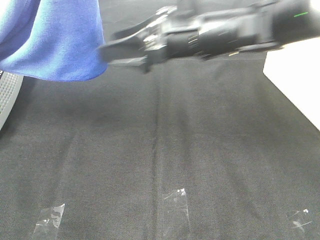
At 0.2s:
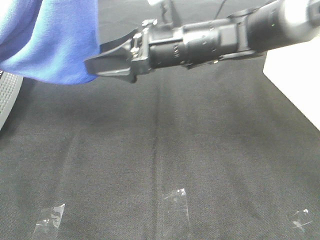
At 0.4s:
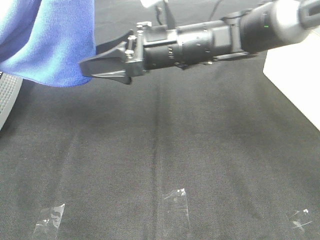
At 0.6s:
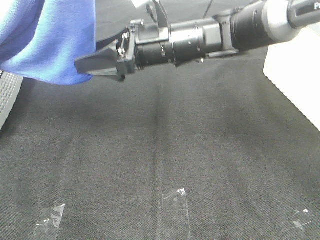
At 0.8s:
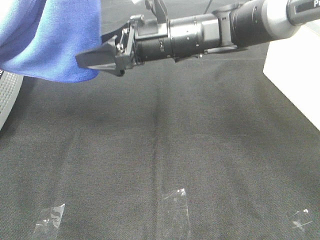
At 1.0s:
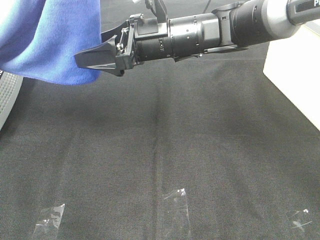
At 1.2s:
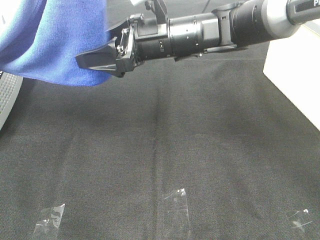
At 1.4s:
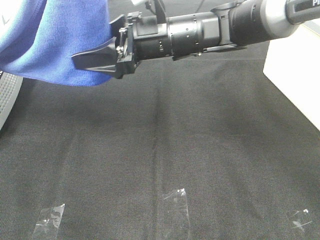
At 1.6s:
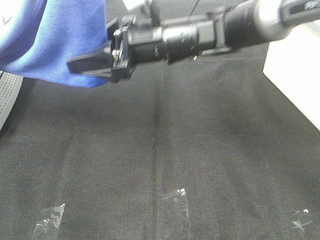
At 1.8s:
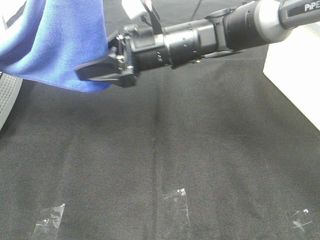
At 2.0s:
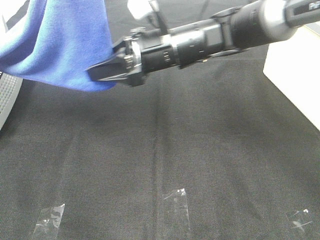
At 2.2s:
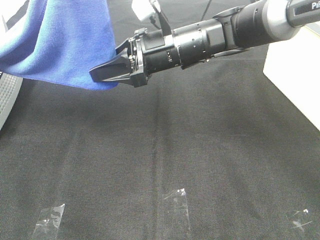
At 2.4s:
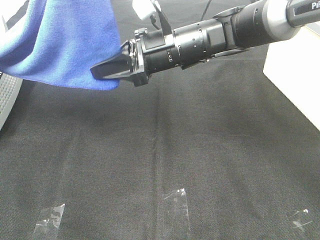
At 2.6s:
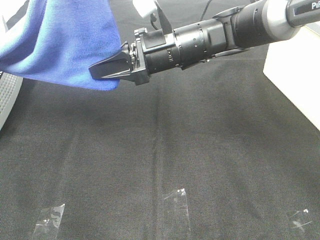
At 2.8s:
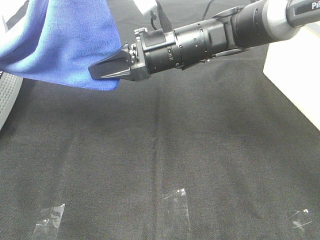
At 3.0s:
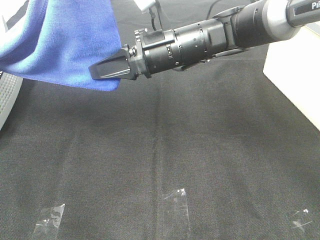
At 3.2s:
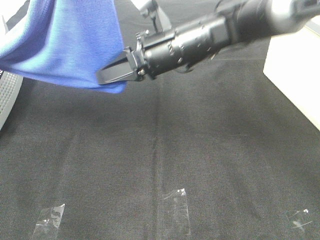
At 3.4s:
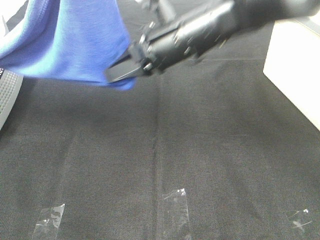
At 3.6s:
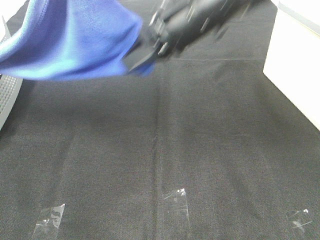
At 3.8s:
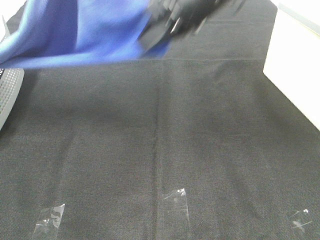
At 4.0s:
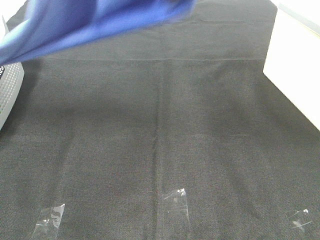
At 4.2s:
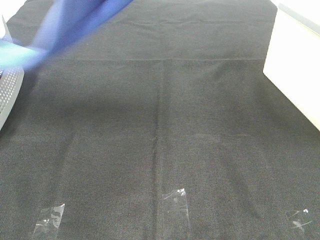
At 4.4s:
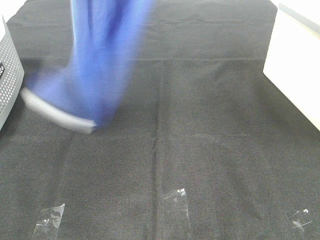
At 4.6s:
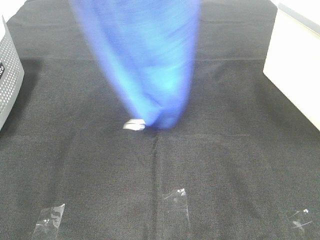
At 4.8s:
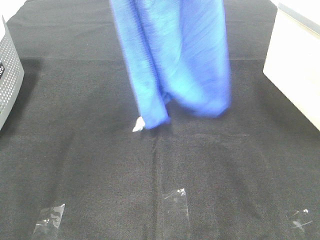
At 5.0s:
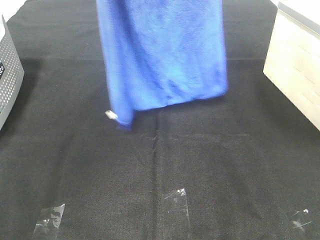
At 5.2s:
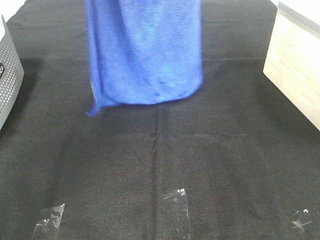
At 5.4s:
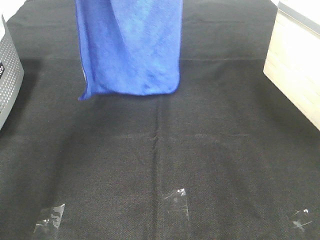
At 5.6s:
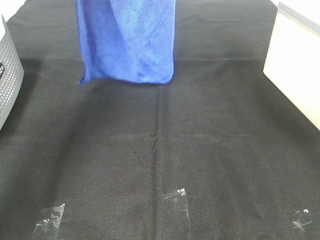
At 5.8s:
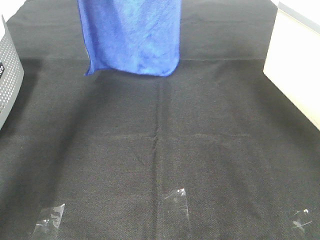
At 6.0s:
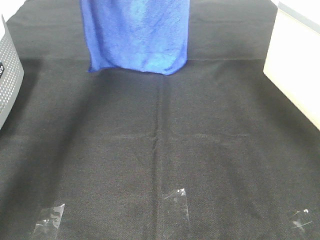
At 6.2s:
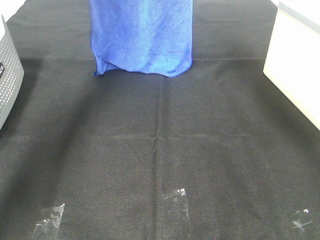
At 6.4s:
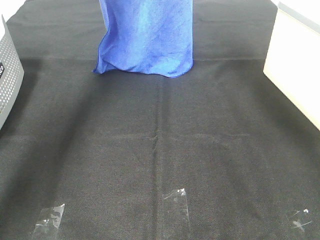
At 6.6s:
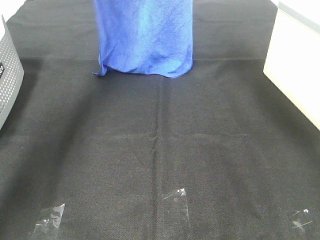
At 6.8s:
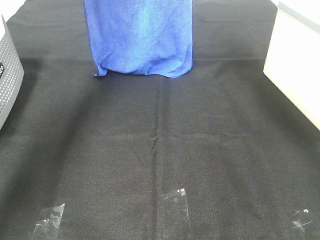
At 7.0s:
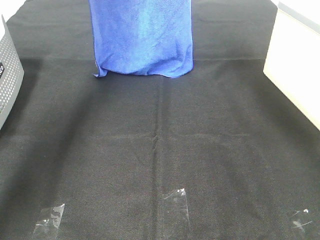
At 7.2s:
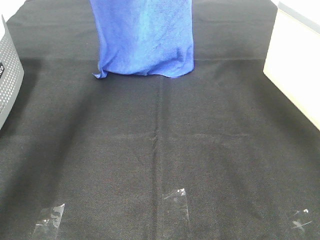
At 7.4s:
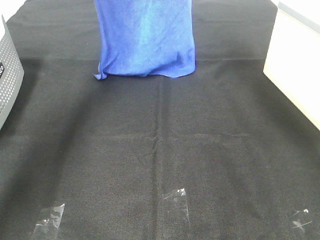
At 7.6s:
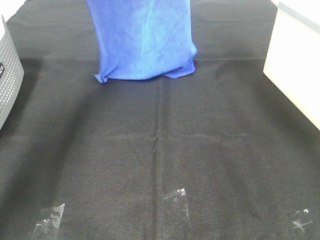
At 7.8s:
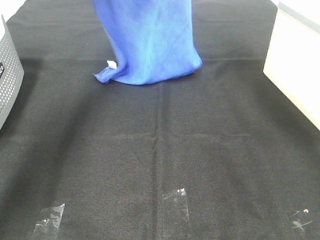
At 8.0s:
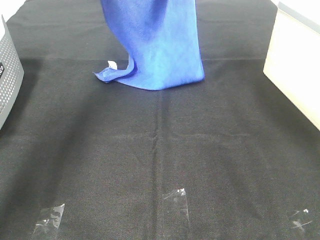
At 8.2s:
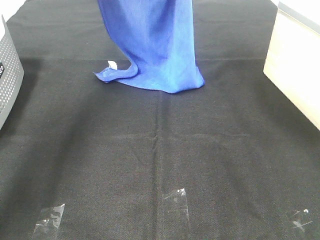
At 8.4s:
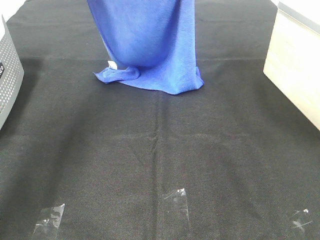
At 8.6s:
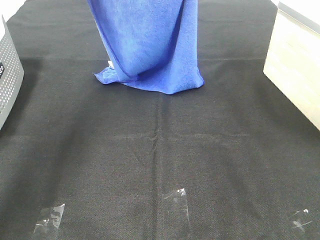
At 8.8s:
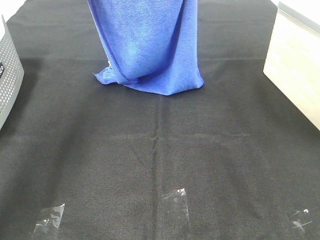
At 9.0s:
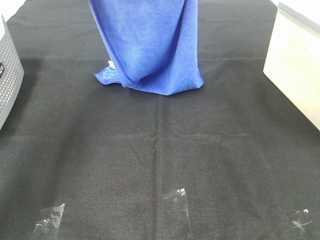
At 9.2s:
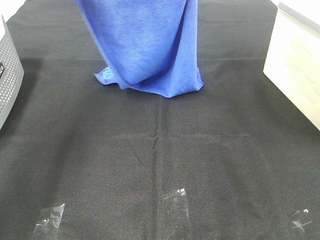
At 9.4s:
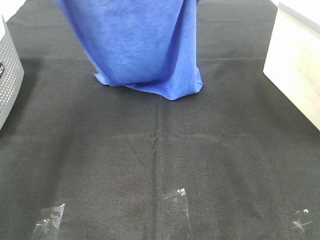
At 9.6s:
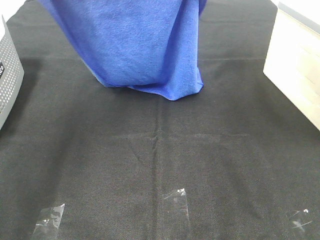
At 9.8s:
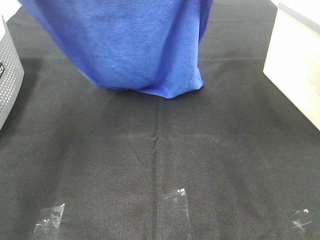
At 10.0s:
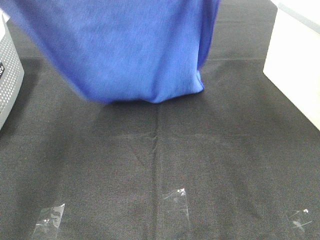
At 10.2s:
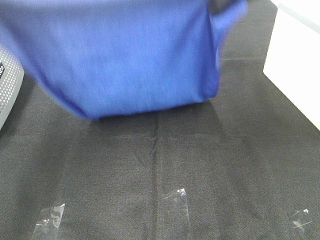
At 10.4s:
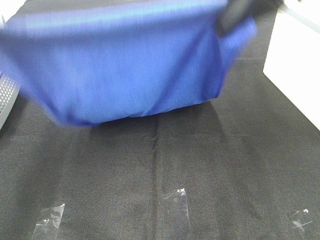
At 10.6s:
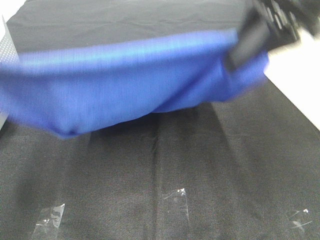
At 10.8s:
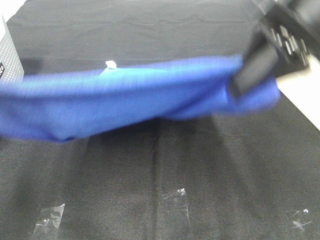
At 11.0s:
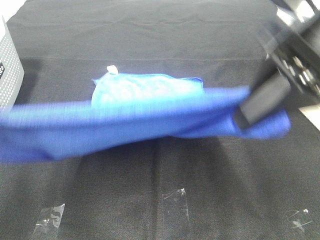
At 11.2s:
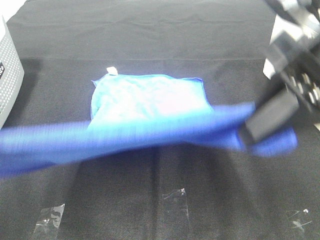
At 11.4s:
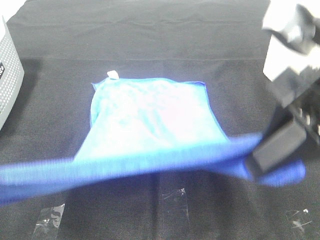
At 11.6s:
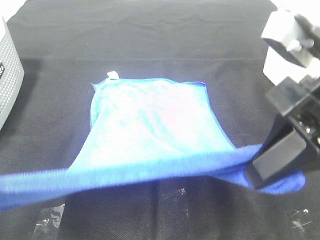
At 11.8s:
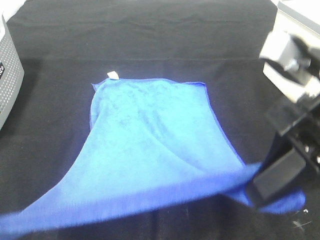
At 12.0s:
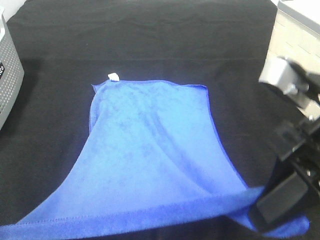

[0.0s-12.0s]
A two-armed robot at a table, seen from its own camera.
Task of the whole recording: Remove the towel and place it.
Step, 2.0s to 9.8s: Left hand: spread the blue towel flat on the table.
Step, 2.0s to 9.8s: Right hand: spread the blue towel flat on the table.
0.0s to 1.6s: The grippers move only a little.
1.6s to 3.0s: The right gripper closes up.
3.0s to 4.4s: The right gripper shifts roughly 30 cm upward. Meanwhile the left gripper shifts by about 5 cm.
4.4s to 6.0s: The left gripper shifts approximately 20 cm forward. The right gripper heads forward, covering approximately 15 cm.
6.0s to 7.6s: There are only small adjustments of the grippers.
7.6s to 9.0s: Both grippers travel together backward, approximately 10 cm.
9.0s to 10.4s: The right gripper goes about 15 cm backward and downward, while the left gripper is displaced backward by approximately 20 cm.
10.4s to 12.0s: Both grippers travel together backward and downward, approximately 15 cm.

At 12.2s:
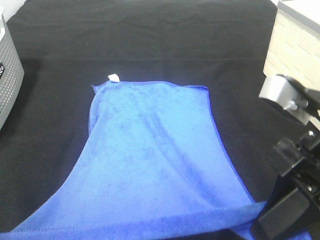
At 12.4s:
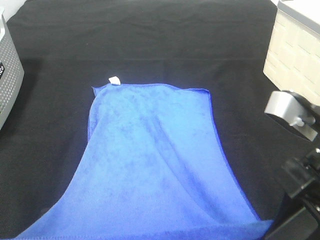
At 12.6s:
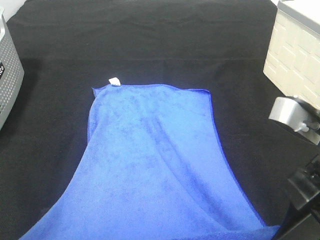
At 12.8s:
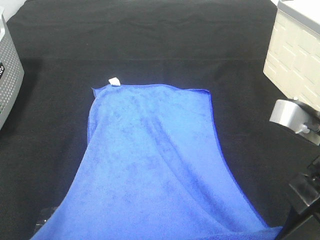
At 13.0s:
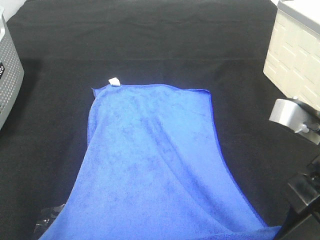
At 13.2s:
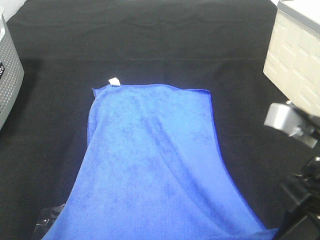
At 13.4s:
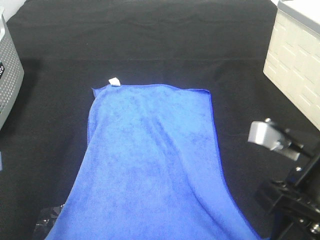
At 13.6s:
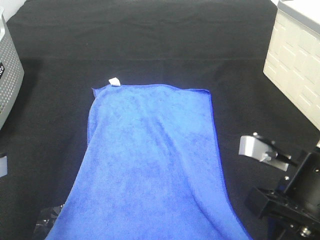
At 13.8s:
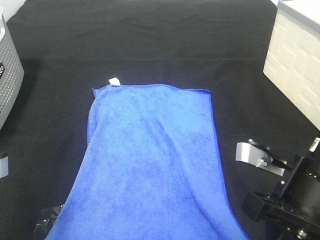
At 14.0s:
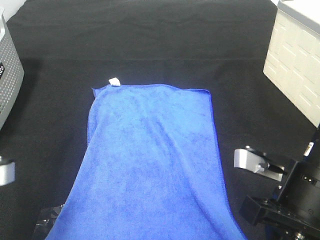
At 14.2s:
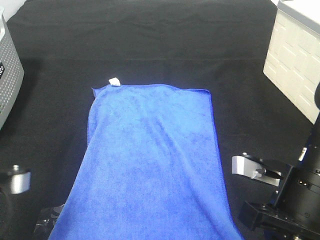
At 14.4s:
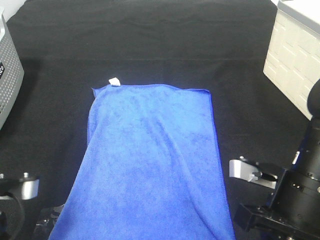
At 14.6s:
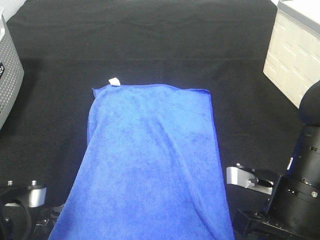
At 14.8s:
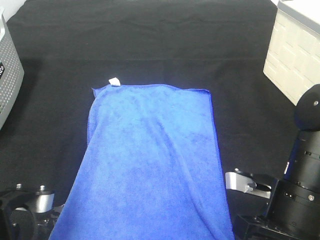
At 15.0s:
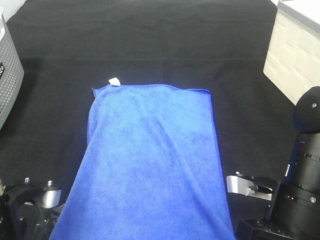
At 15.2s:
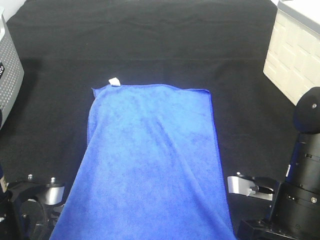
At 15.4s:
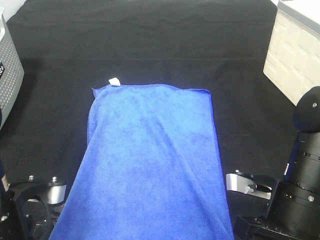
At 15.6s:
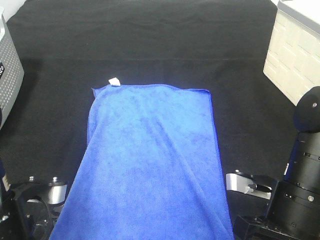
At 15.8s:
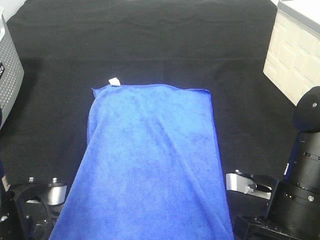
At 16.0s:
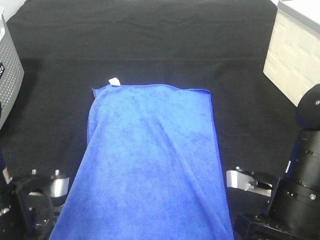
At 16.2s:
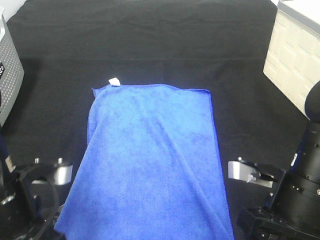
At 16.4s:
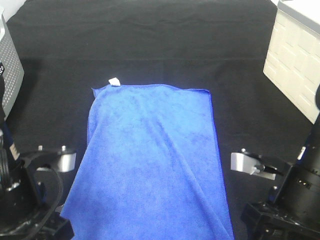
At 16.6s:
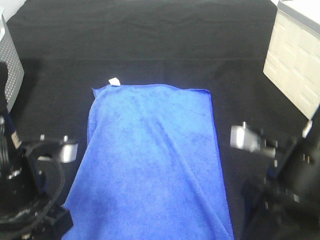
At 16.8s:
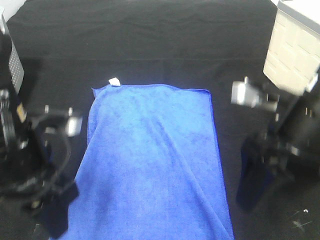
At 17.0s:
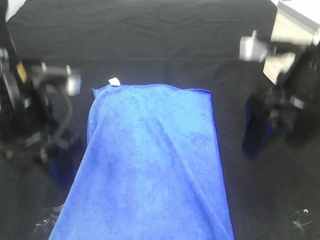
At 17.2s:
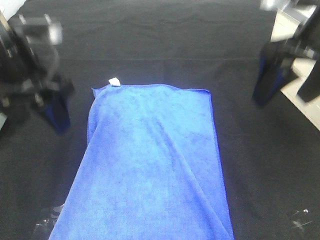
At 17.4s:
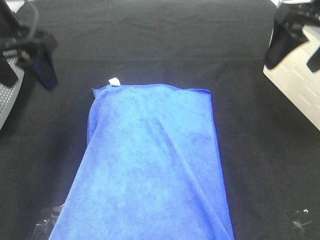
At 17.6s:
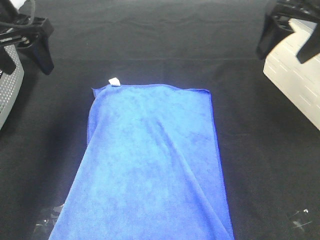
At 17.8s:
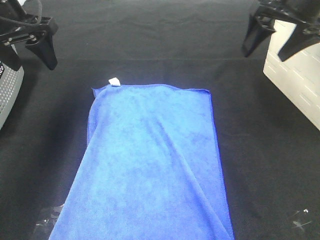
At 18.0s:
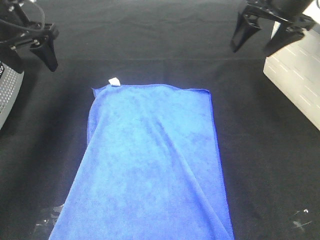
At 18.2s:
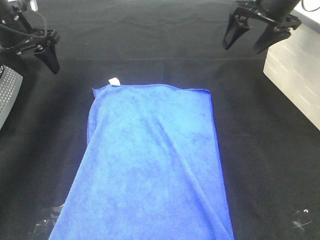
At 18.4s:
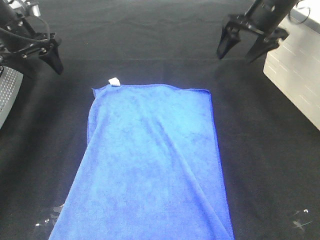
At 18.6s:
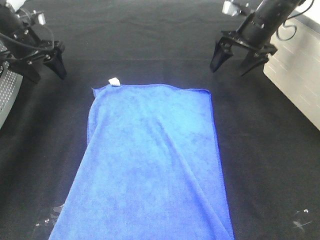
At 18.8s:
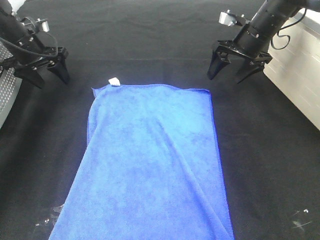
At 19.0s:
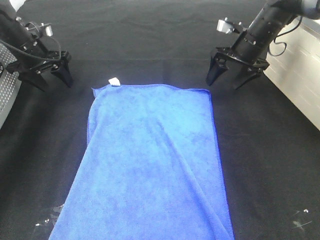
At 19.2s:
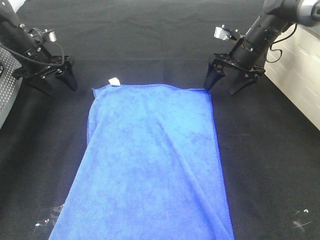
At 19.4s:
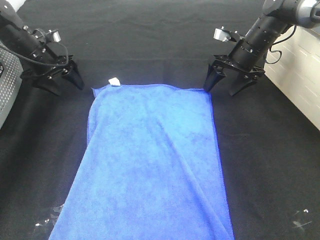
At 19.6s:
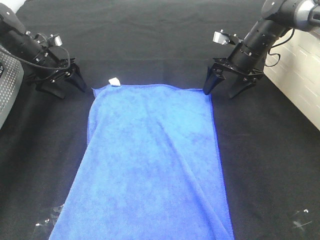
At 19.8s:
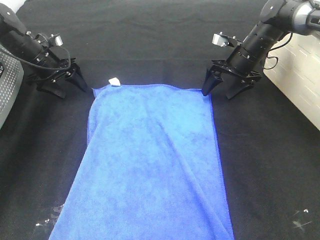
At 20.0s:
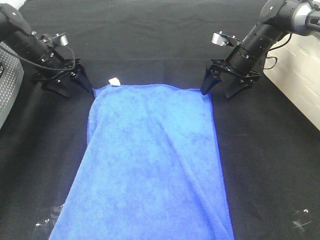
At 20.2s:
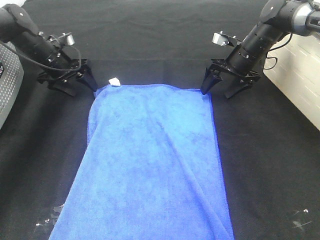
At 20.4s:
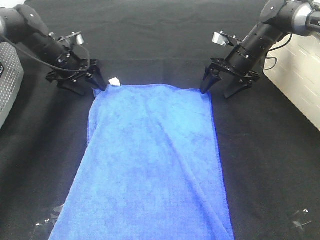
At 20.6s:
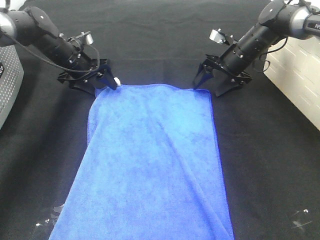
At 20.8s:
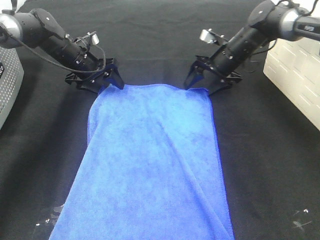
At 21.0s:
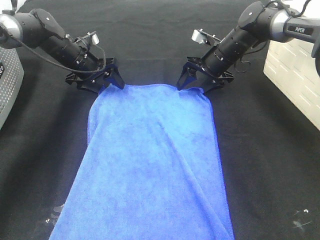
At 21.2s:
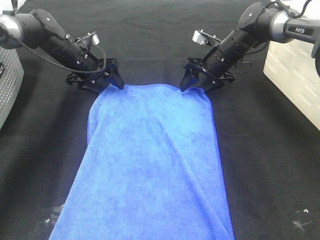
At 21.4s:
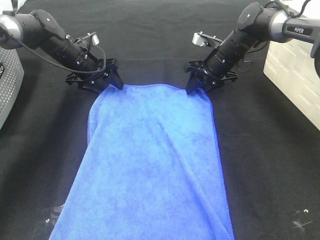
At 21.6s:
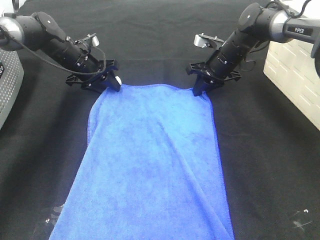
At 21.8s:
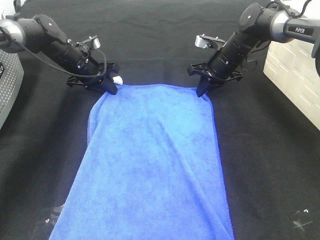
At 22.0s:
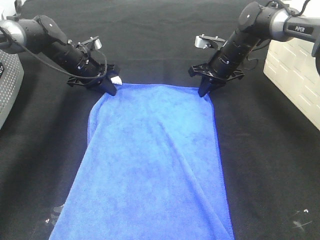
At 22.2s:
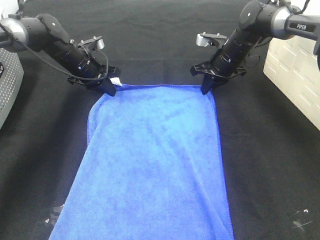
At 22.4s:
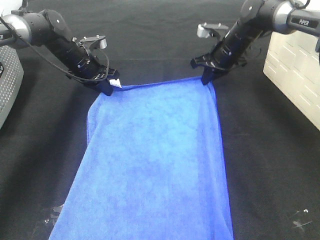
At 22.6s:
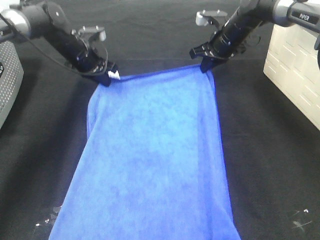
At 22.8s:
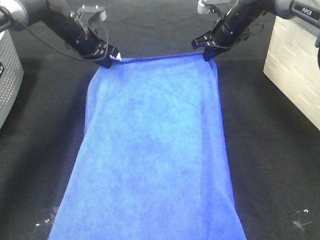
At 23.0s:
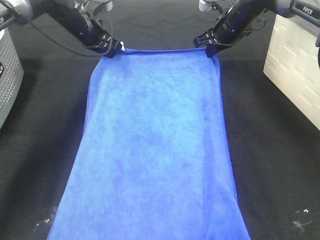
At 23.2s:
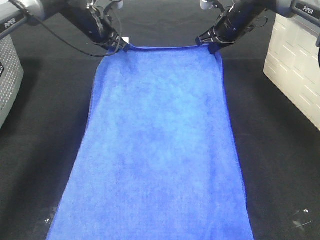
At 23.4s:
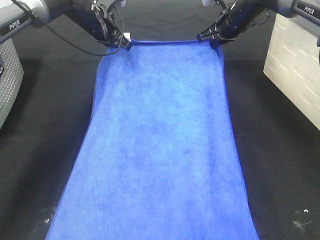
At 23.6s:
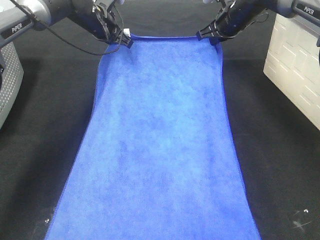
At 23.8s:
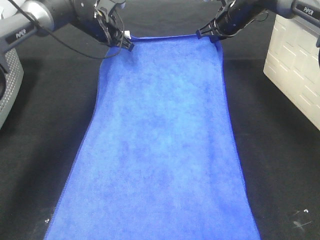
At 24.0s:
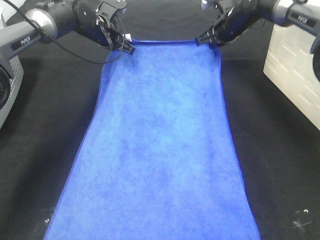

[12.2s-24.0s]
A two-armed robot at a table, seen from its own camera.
Task of the whole recording: Remove the towel and place it.
Step, 12.2s to 18.4s: Left hand:adjust the blue towel.
Step, 12.2s to 18.4s: Right hand:adjust the blue towel.
12.2s to 13.6s: Both grippers move downward, roughly 5 cm.
13.6s to 15.2s: Both grippers move downward, roughly 5 cm. The right gripper opens up.
15.2s to 16.6s: The left gripper ends up about 5 cm from where it was, and opens up. The right gripper heads upward, covering approximately 5 cm.
16.6s to 18.2s: The left gripper heads forward and to the left, covering some 30 cm. Meanwhile the right gripper travels forward by approximately 30 cm.
18.2s to 19.6s: The left gripper heads downward and forward, covering roughly 10 cm. Meanwhile the right gripper goes about 15 cm downward.
19.6s to 21.0s: The left gripper travels to the right by roughly 10 cm. Meanwhile the right gripper shifts about 5 cm to the left.
21.0s to 22.6s: The left gripper closes up. The right gripper shifts by about 5 cm, and closes its fingers.
22.6s to 24.0s: The left gripper changes place by about 5 cm.
